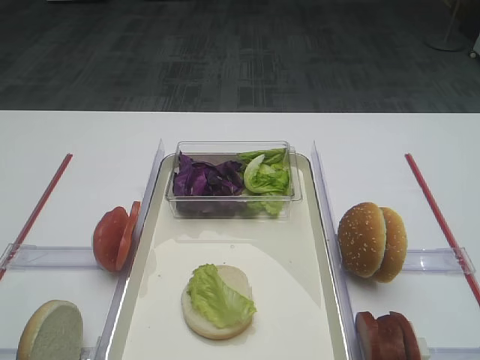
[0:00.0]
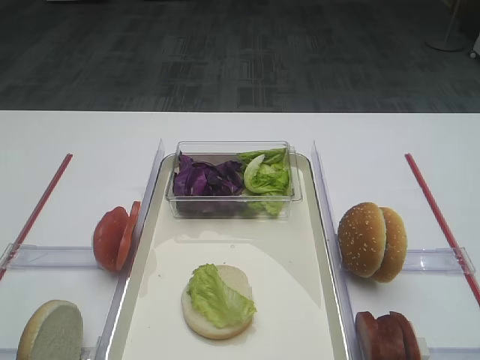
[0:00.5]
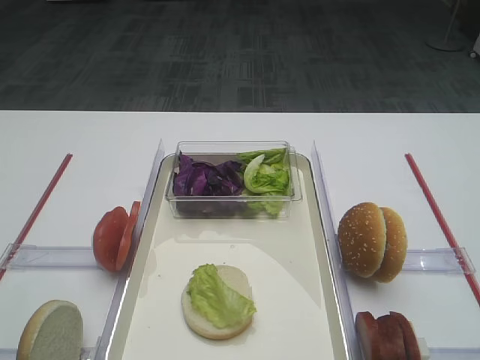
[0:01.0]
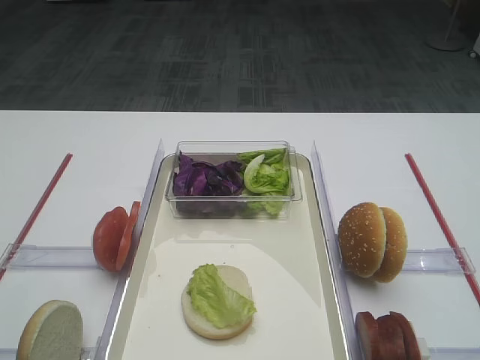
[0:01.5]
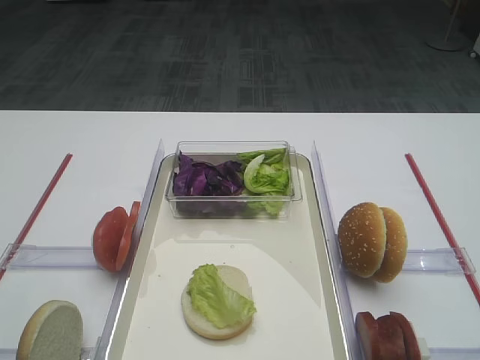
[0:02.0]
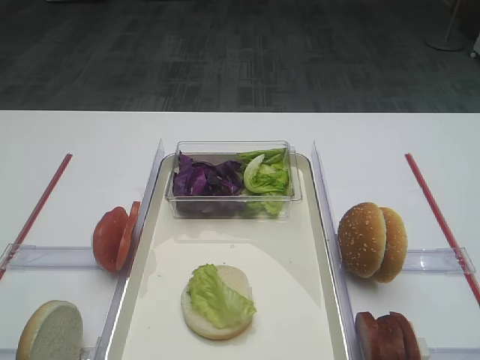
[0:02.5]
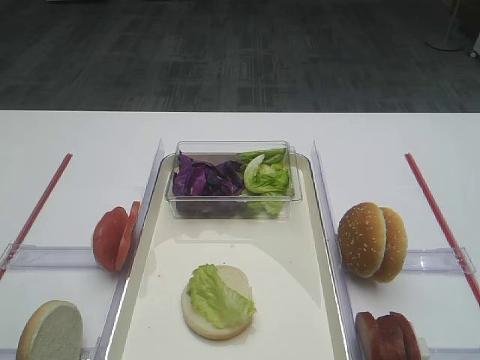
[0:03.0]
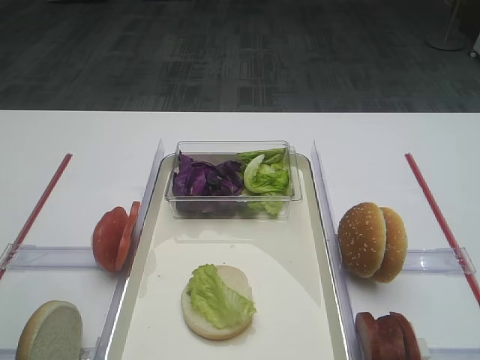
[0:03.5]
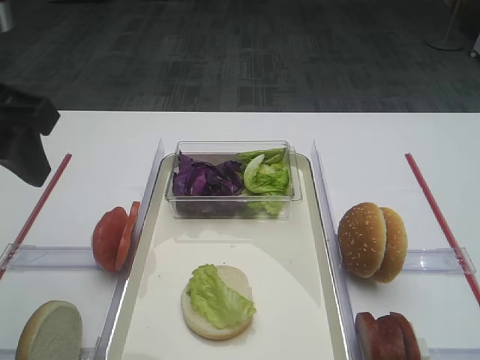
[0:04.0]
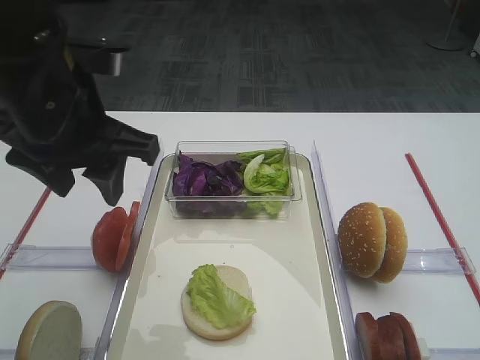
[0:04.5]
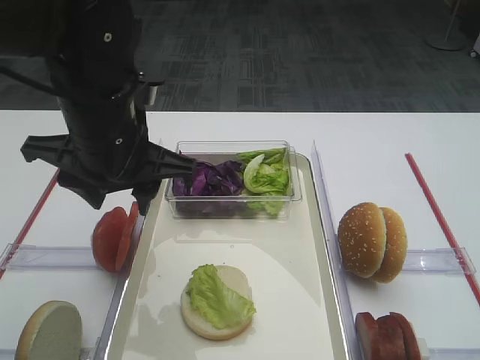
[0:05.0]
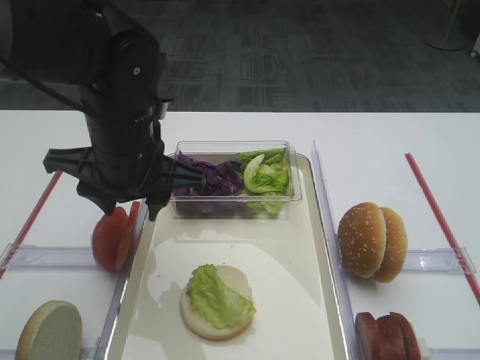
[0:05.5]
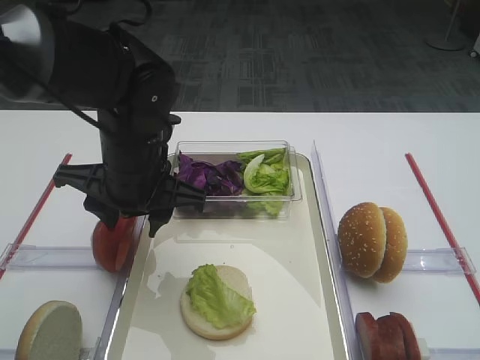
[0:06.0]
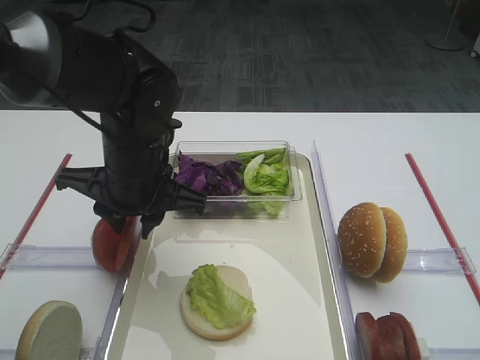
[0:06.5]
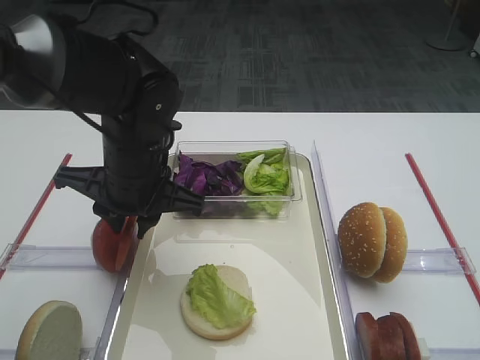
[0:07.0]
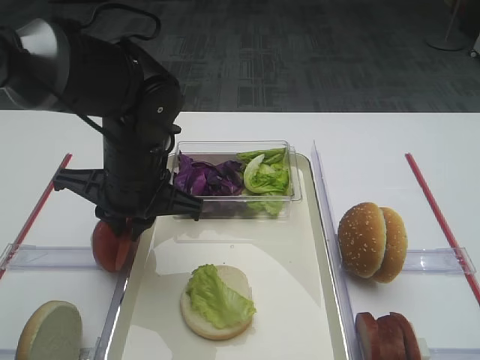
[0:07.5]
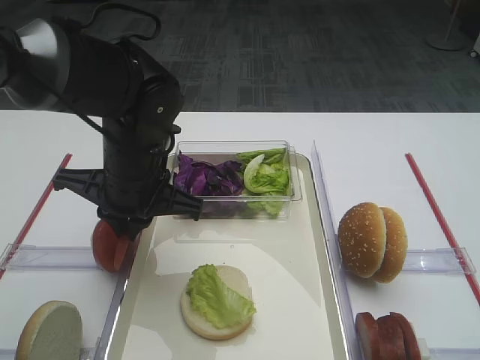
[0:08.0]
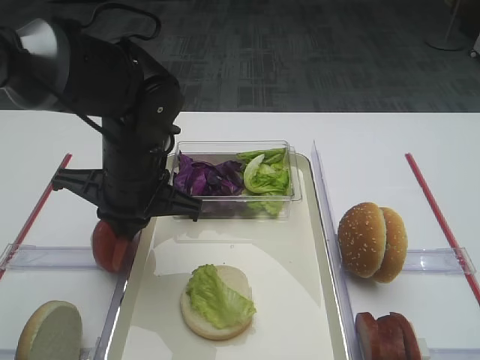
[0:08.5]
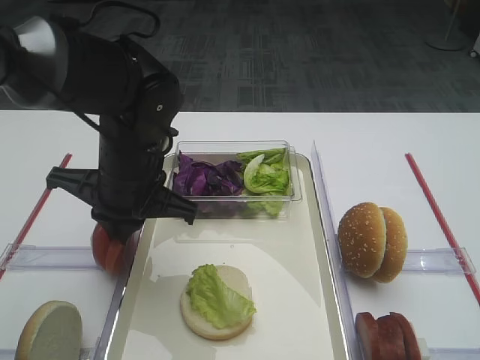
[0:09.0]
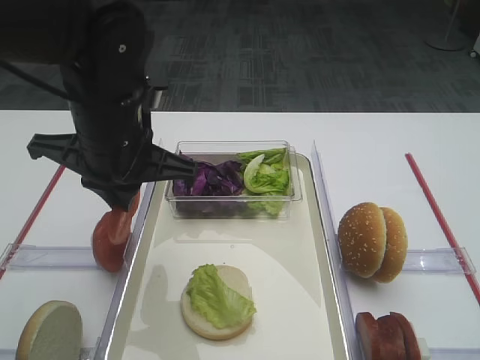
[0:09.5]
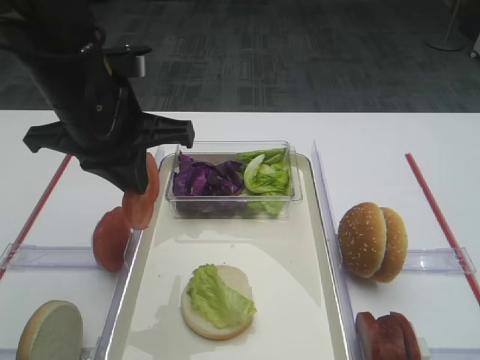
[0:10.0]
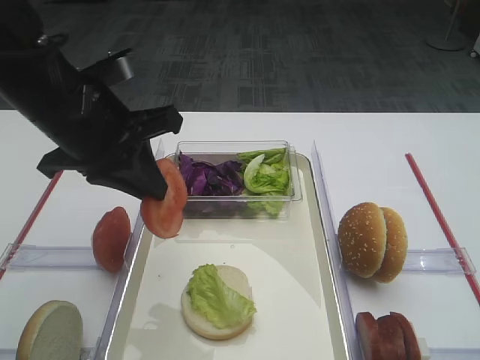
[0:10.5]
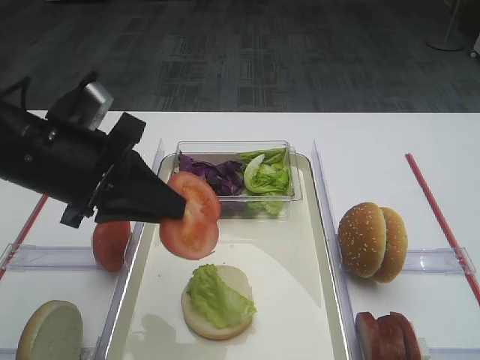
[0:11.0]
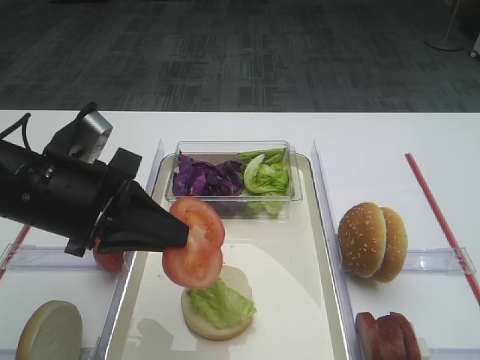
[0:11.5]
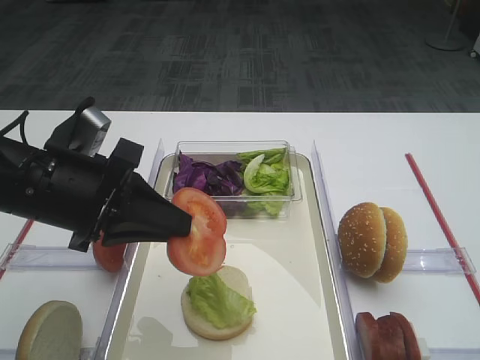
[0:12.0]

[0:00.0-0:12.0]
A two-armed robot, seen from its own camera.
Step, 0:00.0 to 0:10.0: Pick up the tomato slice with the left gripper.
0:02.0 to 0:04.0: The left gripper shifts approximately 25 cm forward.
0:04.0 to 0:06.0: The left gripper shifts some 20 cm downward, to the right and forward.
0:06.0 to 0:08.0: The left gripper closes.
0:08.0 to 0:10.0: The left gripper goes roughly 10 cm upward.
0:10.0 to 0:12.0: The left gripper is displaced downward and backward by about 10 cm.

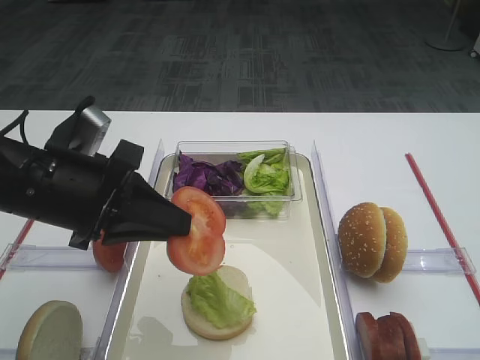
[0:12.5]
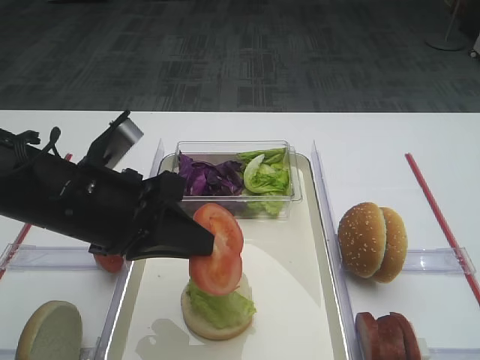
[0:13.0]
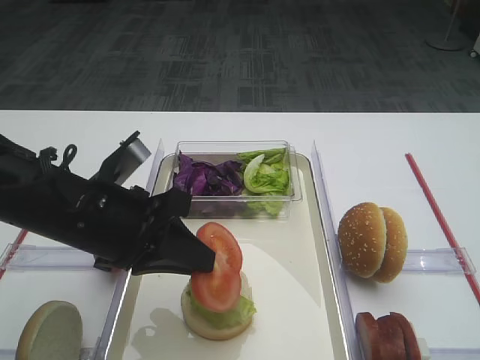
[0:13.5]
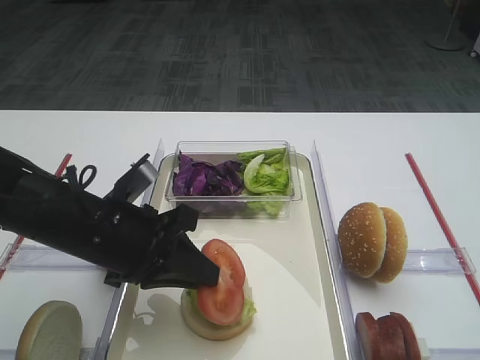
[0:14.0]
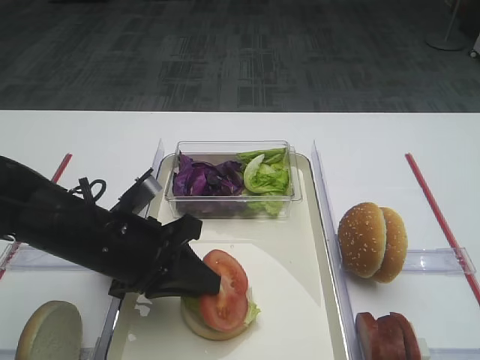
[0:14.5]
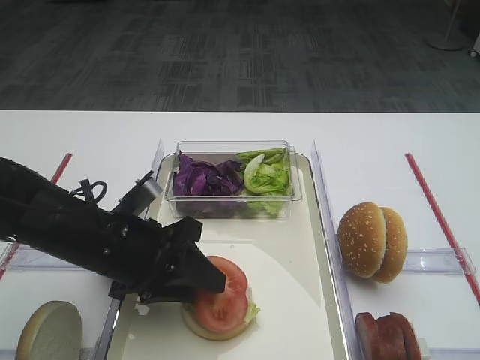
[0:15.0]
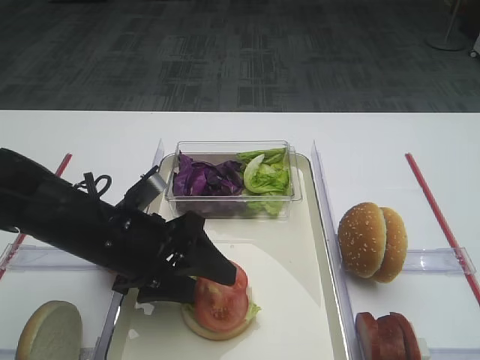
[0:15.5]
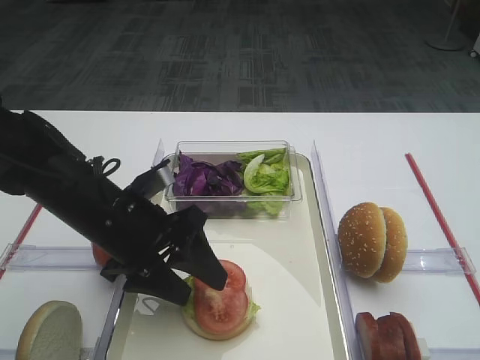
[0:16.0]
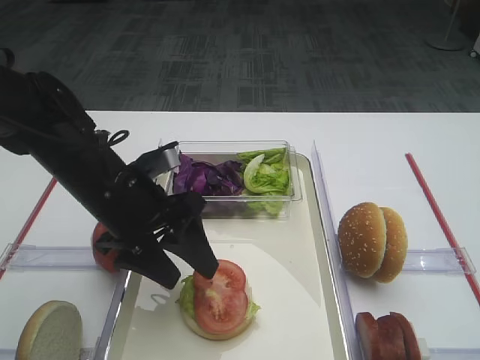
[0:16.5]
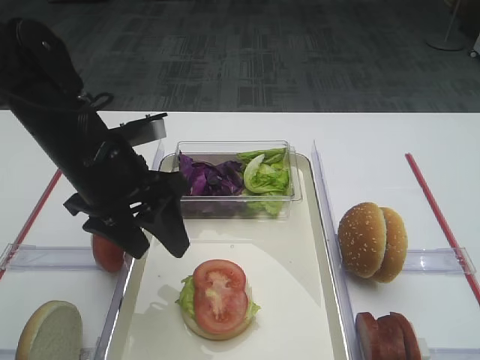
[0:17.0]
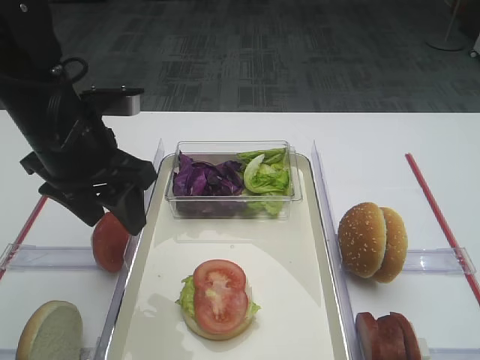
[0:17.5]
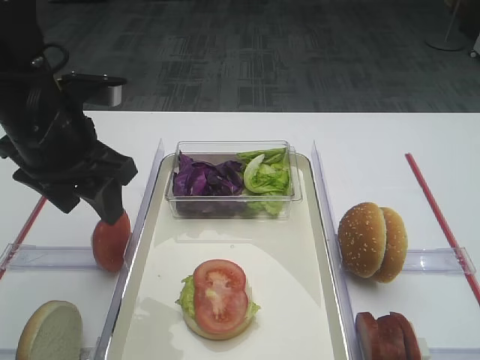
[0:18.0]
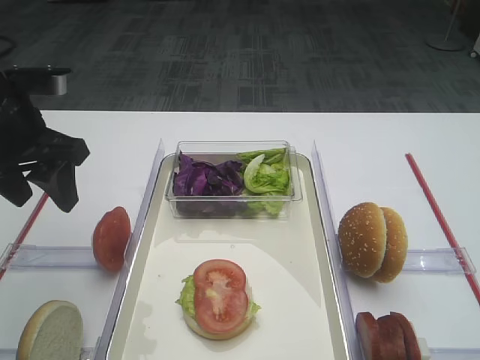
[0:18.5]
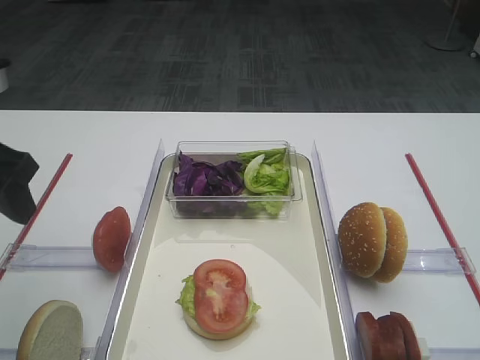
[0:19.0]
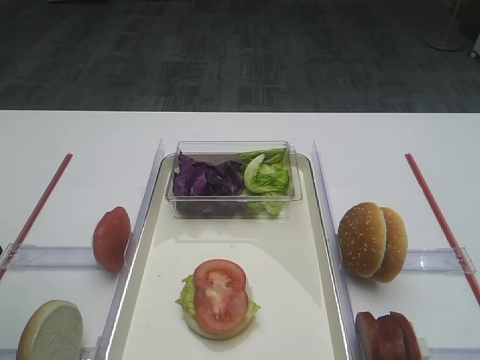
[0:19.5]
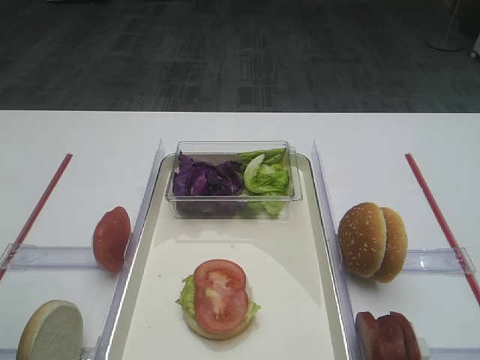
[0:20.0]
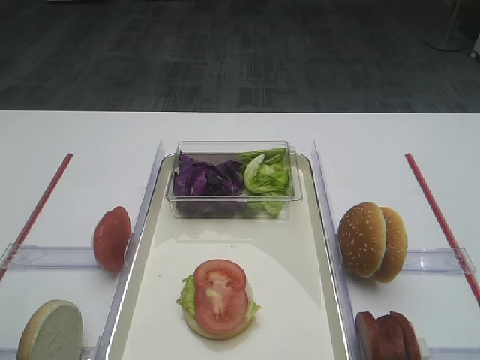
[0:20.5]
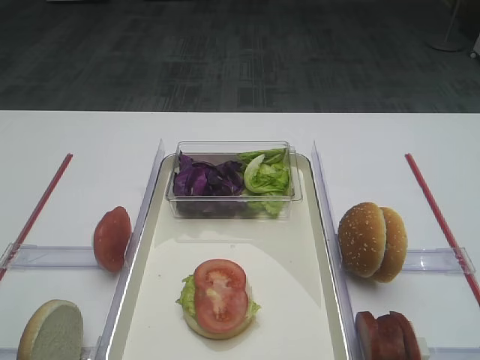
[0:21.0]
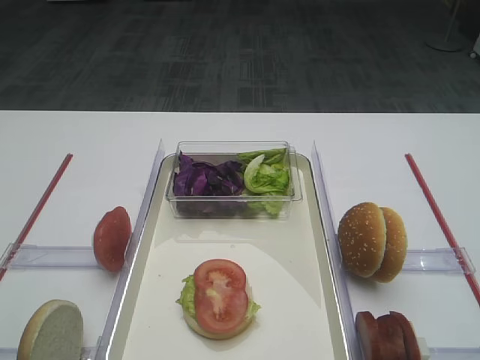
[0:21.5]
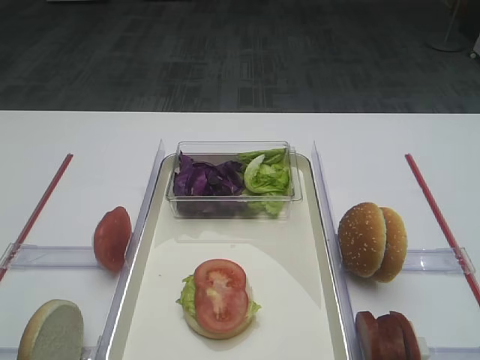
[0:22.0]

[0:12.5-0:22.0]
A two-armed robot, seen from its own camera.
Step, 0:12.5 to 0:16.0: Place the tomato slice on the lettuce leaf with the left gripper.
0:12.5 to 0:14.5: The left gripper moves downward, roughly 10 cm.
0:14.5 to 0:16.5: The left gripper ends up approximately 5 cm from where it was, and opens.
0:16.5 to 0:18.0: The left gripper shifts approximately 10 cm upward and to the left.
0:18.0 to 0:20.0: The left gripper travels backward and to the left by some 20 cm.

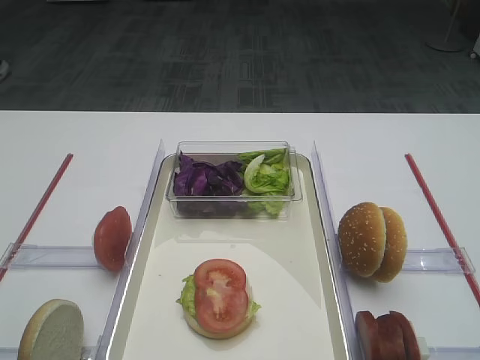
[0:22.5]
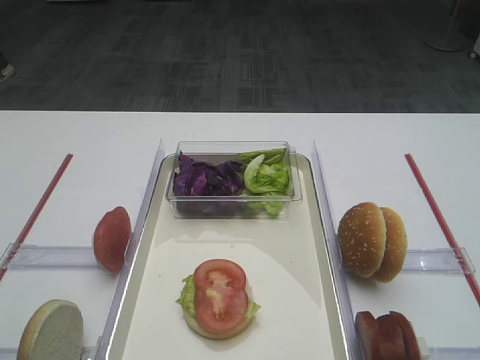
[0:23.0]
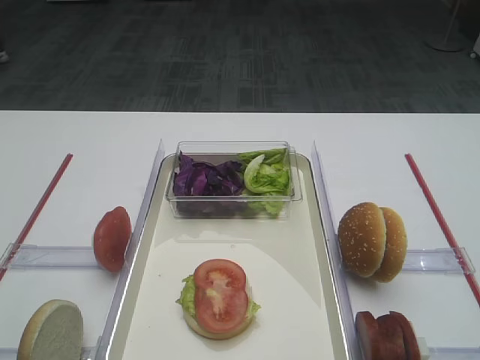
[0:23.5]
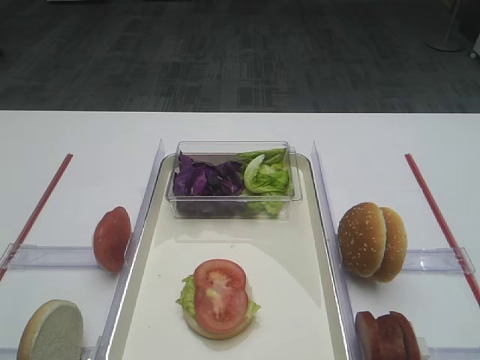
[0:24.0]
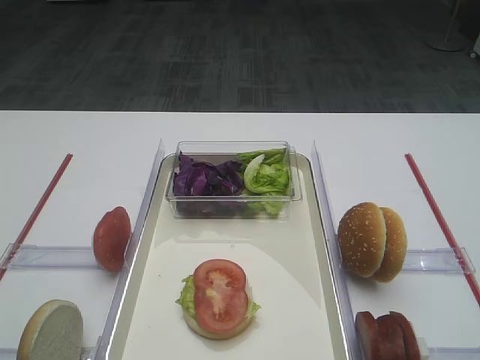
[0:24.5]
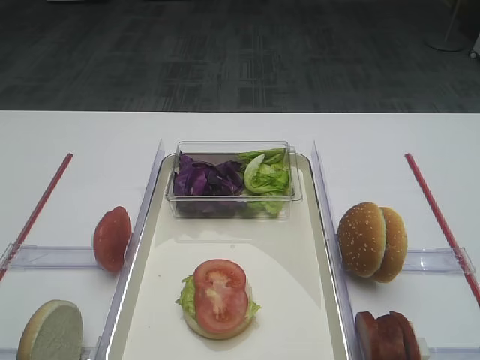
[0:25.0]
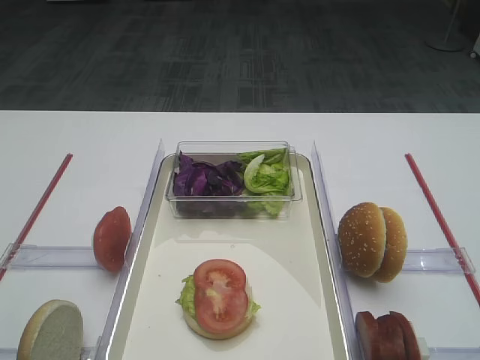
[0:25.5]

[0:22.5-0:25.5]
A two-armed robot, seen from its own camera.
0:24.0 to 0:25.5: Neither gripper changes place.

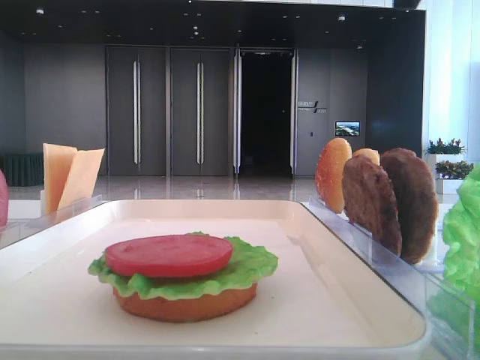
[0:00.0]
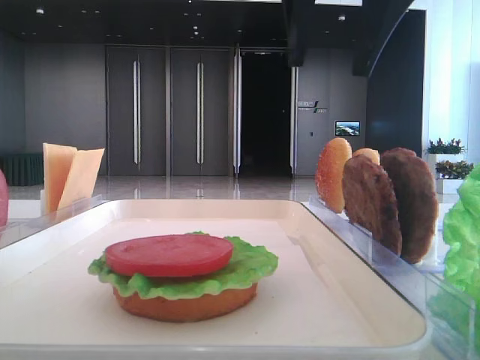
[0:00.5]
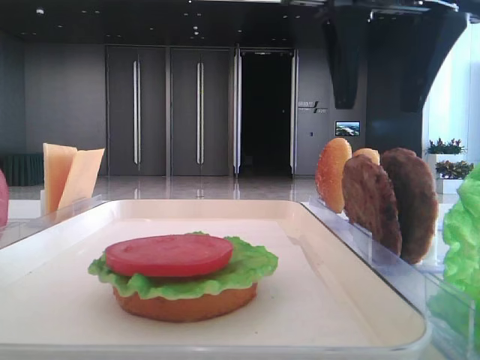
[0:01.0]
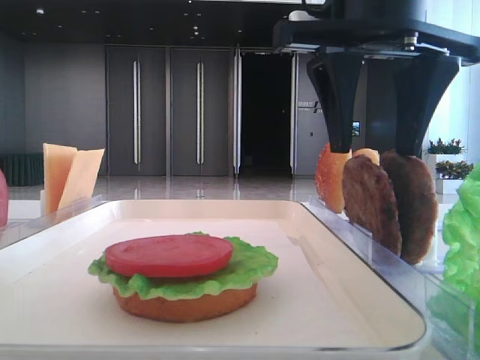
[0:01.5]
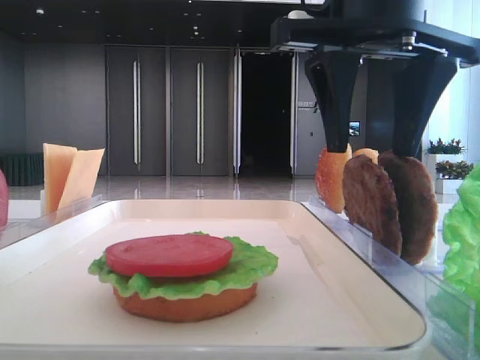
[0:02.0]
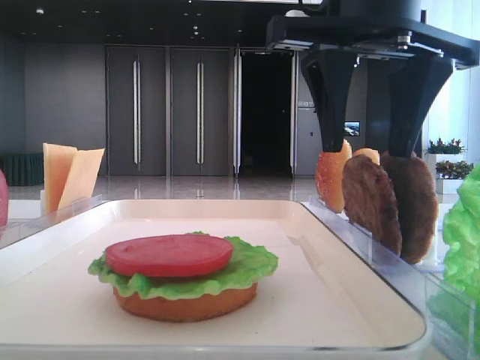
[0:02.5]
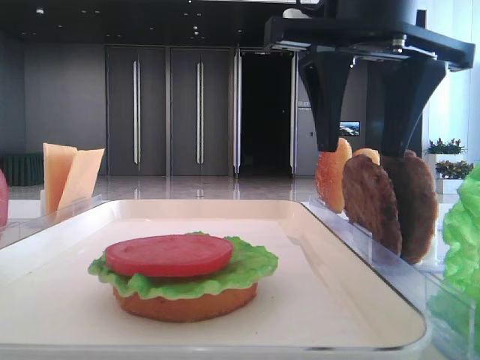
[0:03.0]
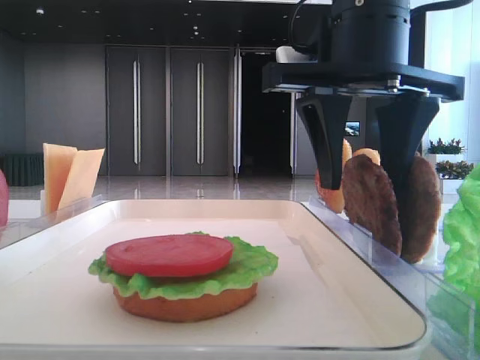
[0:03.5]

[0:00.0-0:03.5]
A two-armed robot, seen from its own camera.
0:00.0 to 0:02.0: The right gripper moves downward and forward, roughly 10 cm.
0:02.0 to 0:03.5: The grippers make only small movements.
